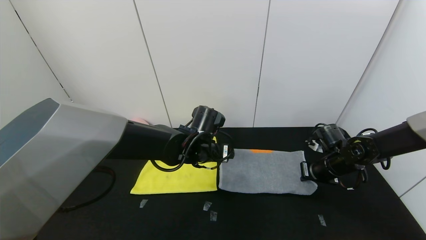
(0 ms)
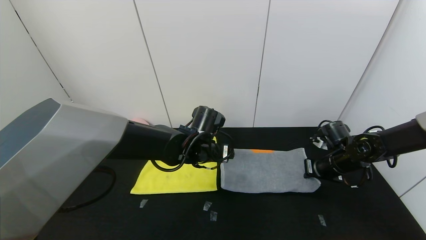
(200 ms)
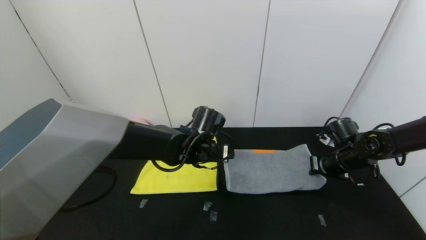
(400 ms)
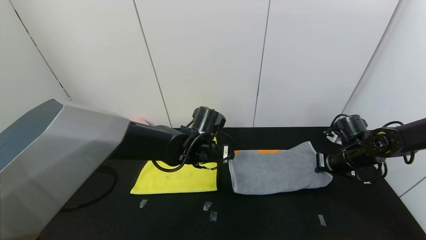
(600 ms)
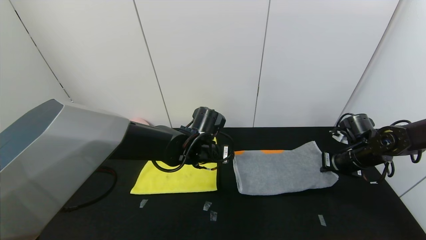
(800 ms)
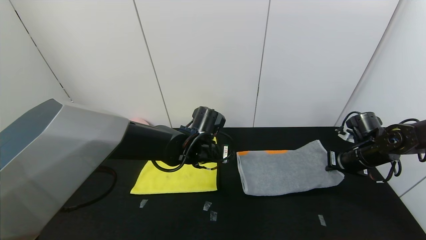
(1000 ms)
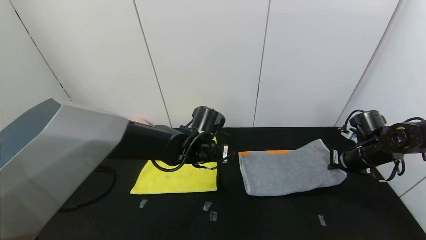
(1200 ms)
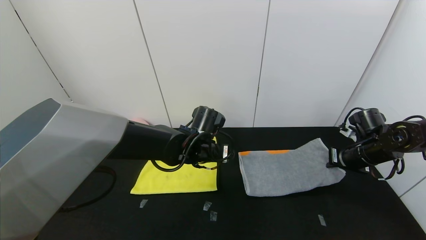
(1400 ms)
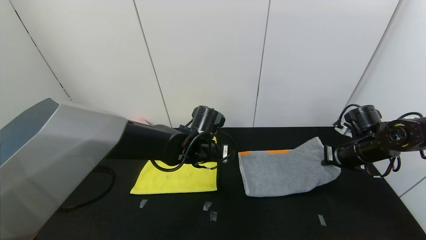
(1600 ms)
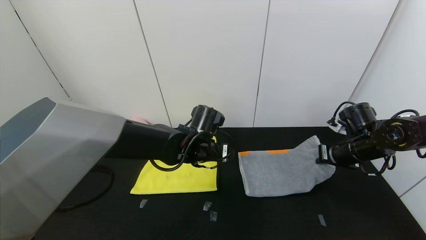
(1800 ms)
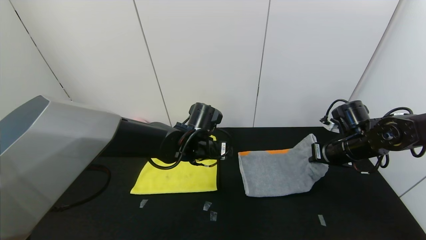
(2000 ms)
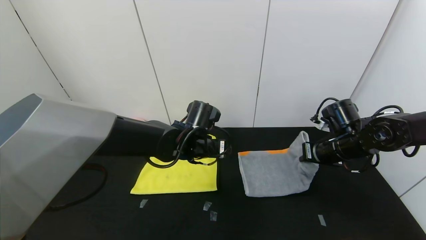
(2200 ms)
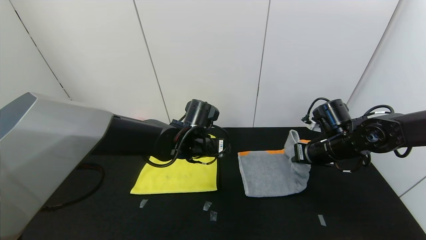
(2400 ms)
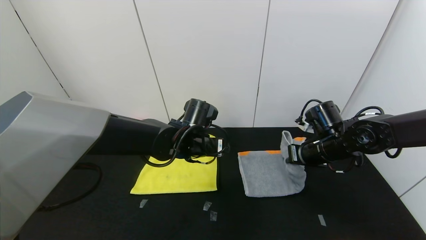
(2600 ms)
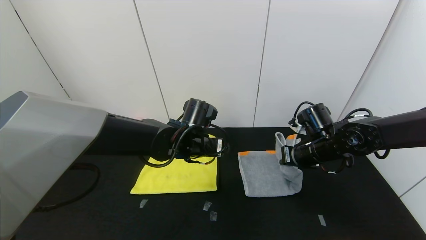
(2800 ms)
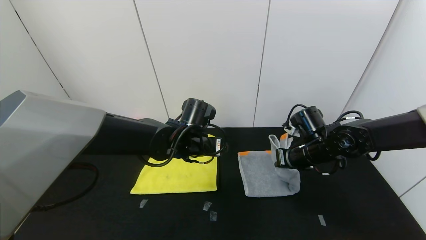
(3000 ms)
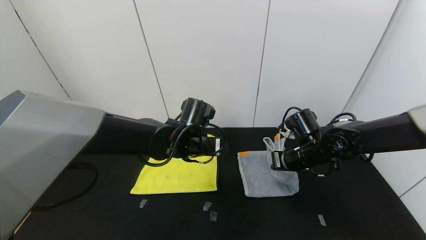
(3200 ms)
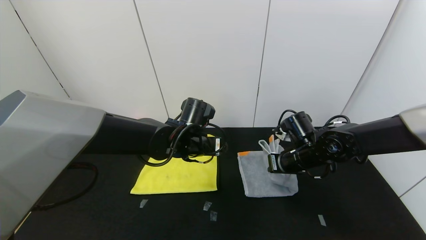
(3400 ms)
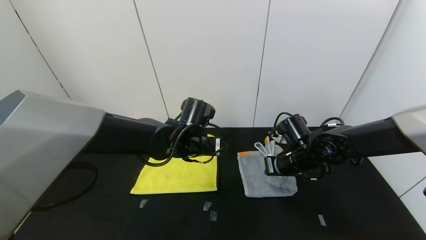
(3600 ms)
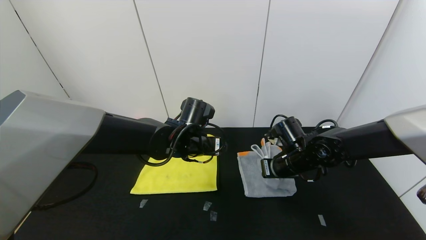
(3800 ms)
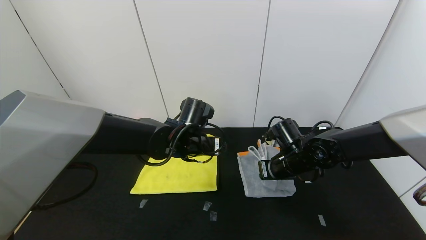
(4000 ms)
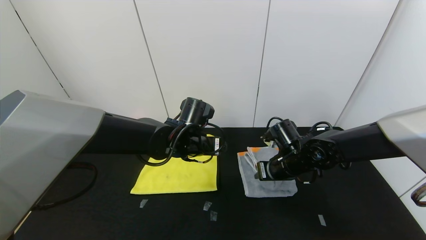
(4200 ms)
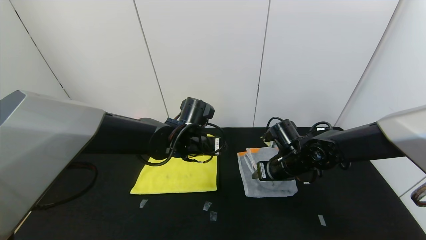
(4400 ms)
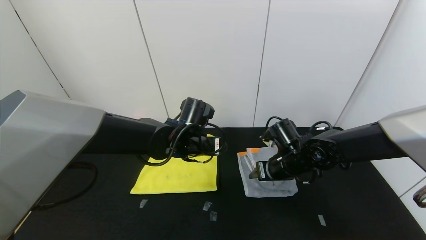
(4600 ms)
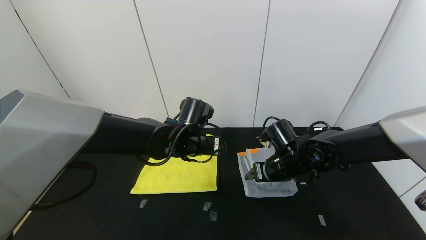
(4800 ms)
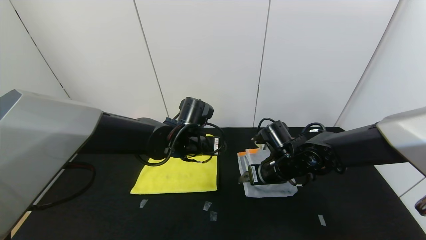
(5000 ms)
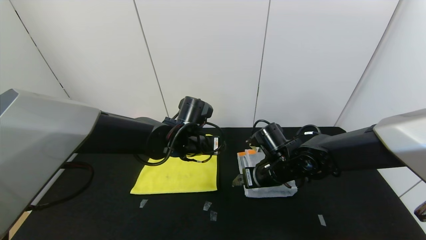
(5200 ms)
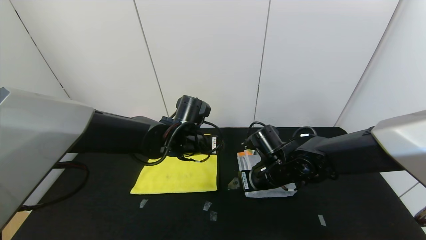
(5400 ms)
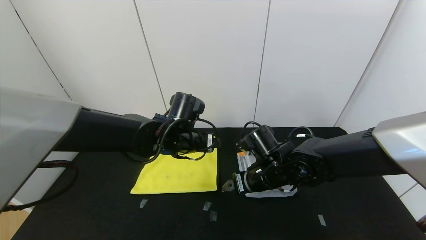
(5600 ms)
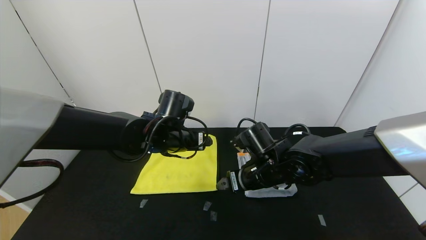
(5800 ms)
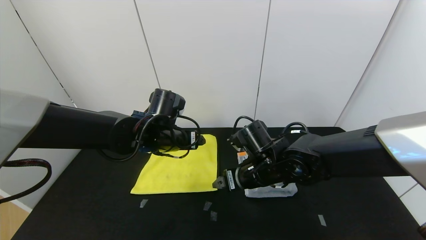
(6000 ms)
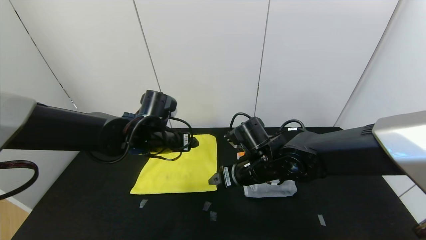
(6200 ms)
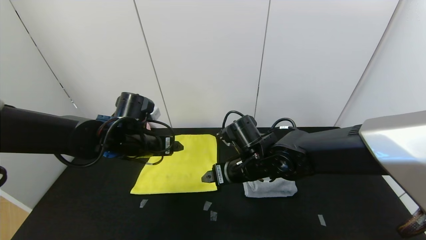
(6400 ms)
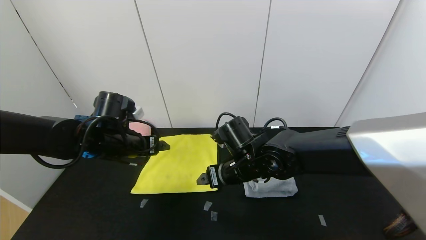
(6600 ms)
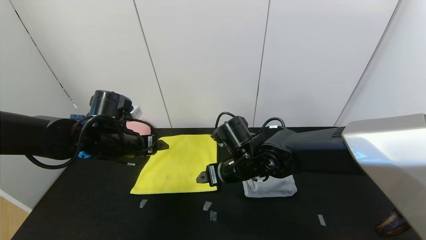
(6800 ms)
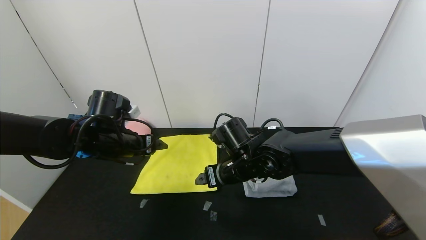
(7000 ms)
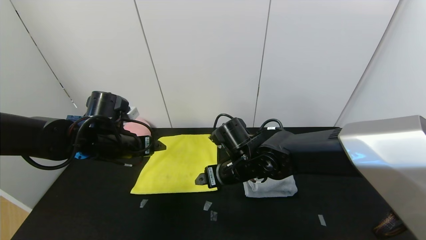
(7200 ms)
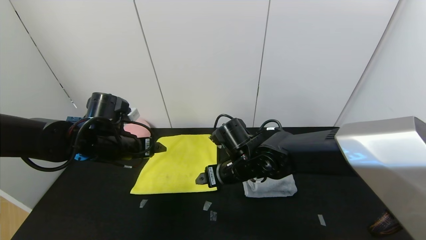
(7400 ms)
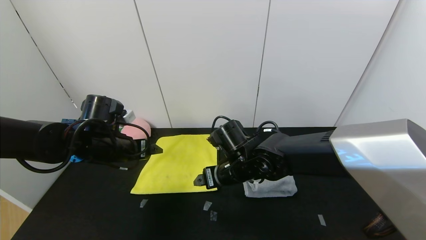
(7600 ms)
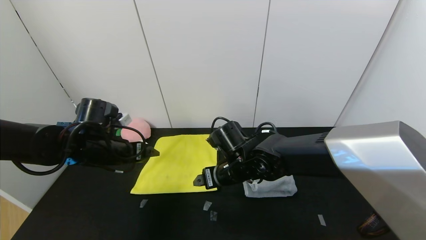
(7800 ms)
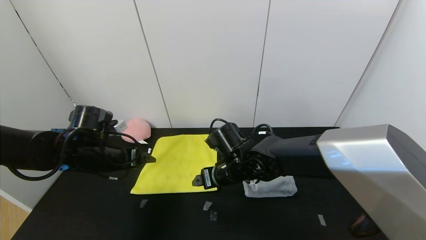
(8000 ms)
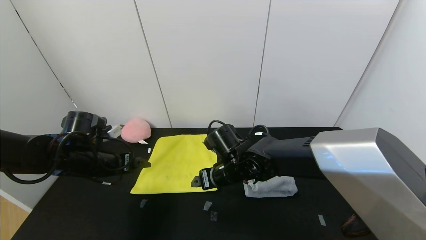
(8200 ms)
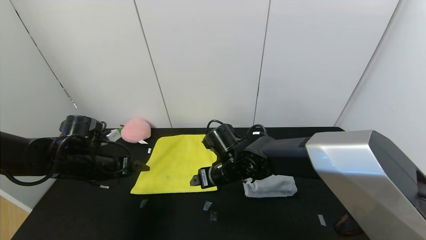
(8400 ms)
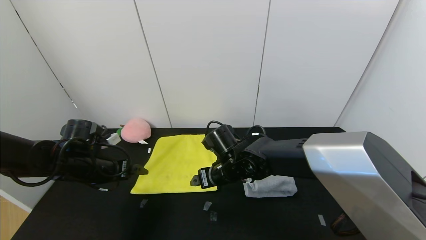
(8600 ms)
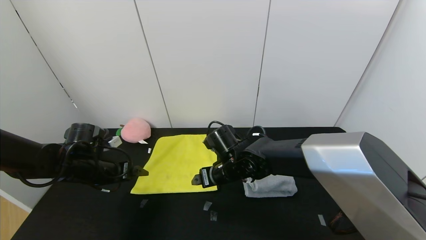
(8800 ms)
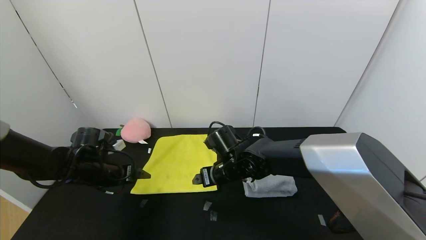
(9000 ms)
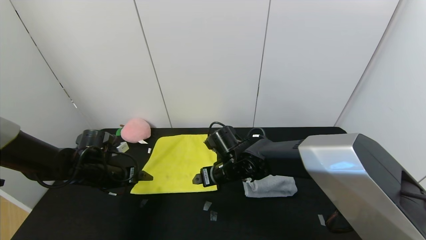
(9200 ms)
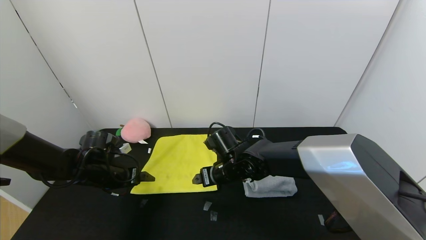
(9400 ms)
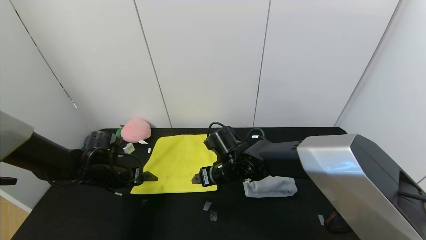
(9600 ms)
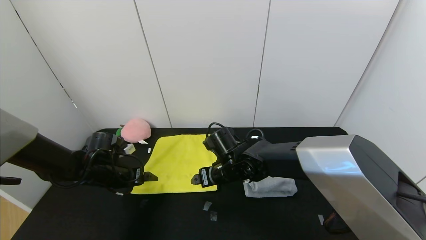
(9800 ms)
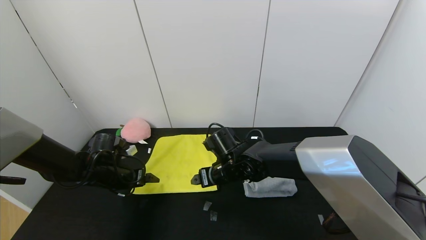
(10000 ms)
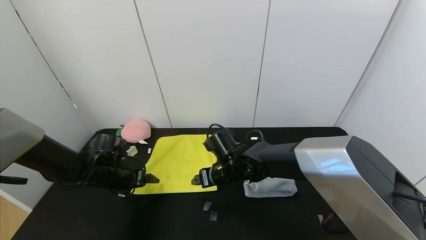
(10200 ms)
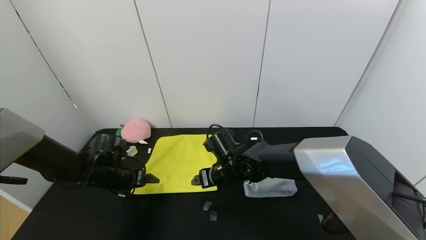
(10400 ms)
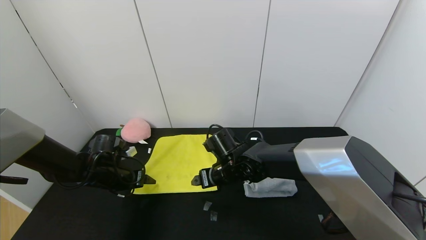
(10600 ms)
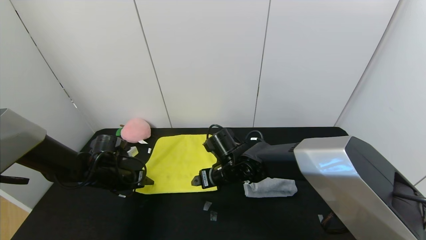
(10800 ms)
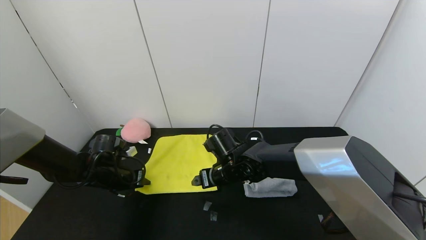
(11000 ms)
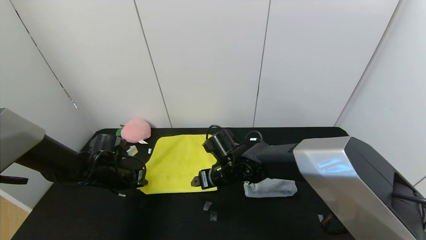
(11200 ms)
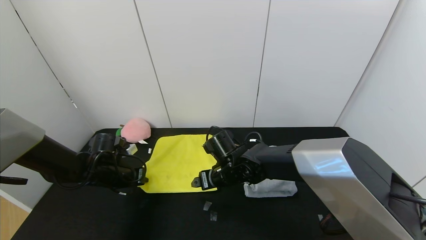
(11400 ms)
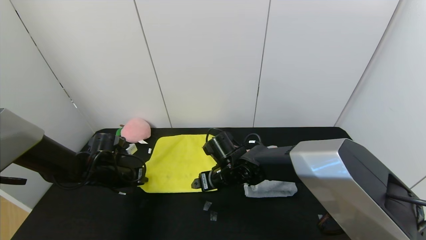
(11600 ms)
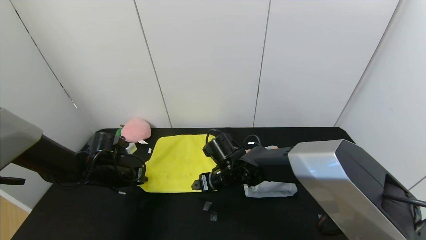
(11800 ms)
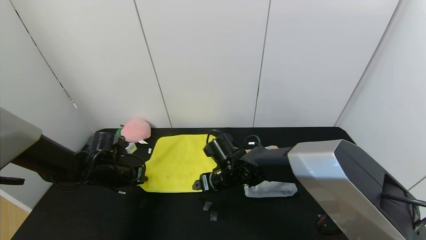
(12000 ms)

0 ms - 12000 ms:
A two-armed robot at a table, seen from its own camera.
Task of the whole recording: Use the gripper to fold the yellow towel and grey towel in half twice,then put the yellow towel on the grey towel.
Step, 0 ms - 6000 ms: Fold the gray towel from right to left with right gripper.
0 ms - 1600 ms: The right gripper shifts roughly 5 cm upward.
1600 ms - 3000 ms: The right gripper moves to the left, about 15 cm.
3000 ms - 4400 ms: The right gripper ends up about 5 cm from where it was, and opens its fingers.
4400 ms - 6000 ms: The two grippers go about 5 cm to the left. The right gripper opens up.
6000 ms - 7600 ms: The left gripper shifts some 10 cm to the left.
7600 ms - 9000 ms: The left gripper is displaced downward and to the left by roughly 10 cm. Meanwhile the right gripper moves some 5 cm.
9000 ms - 10400 ms: The grippers make only small movements.
10400 ms - 12000 ms: The left gripper closes.

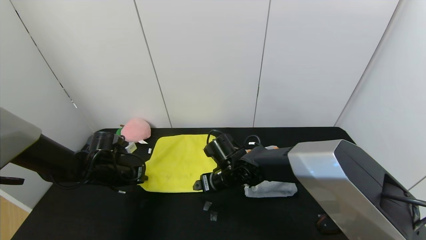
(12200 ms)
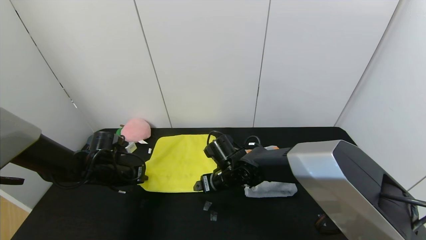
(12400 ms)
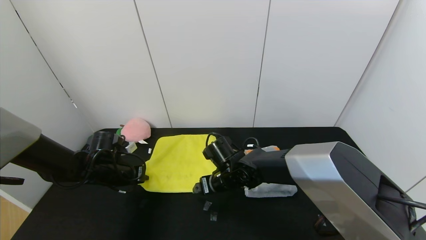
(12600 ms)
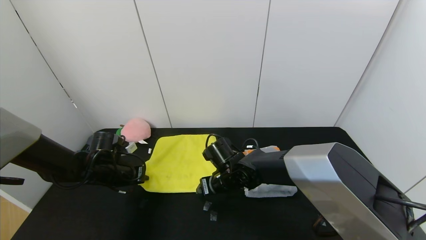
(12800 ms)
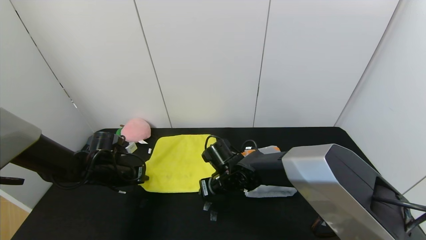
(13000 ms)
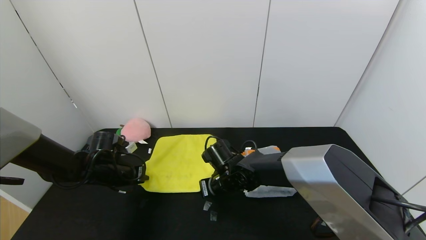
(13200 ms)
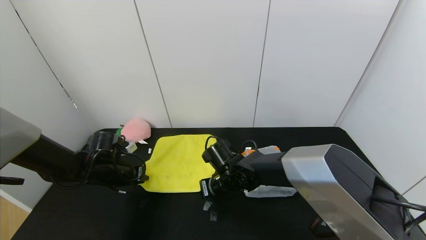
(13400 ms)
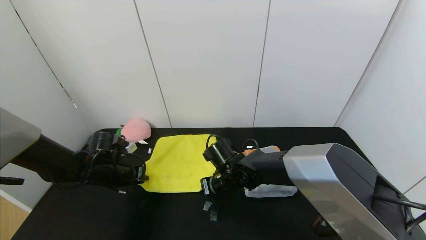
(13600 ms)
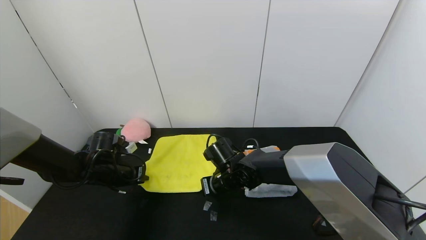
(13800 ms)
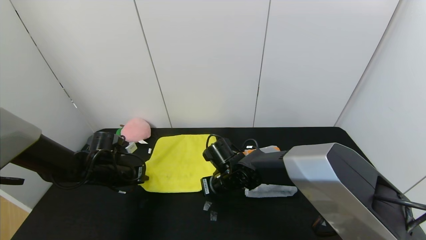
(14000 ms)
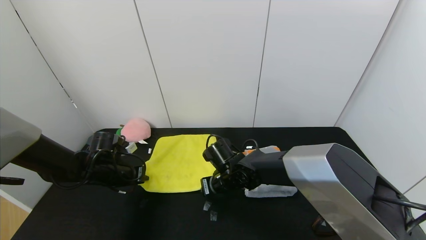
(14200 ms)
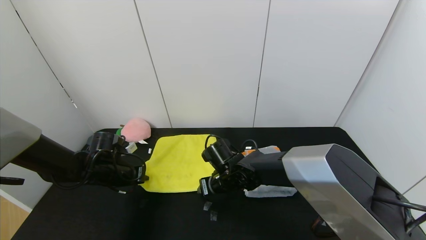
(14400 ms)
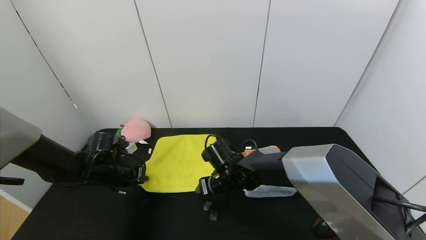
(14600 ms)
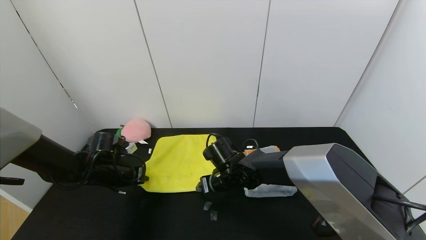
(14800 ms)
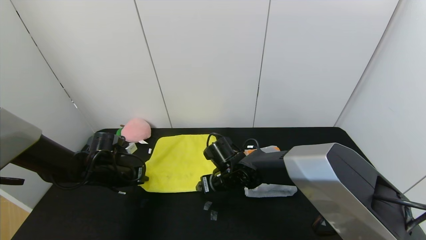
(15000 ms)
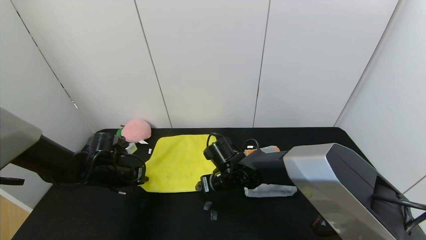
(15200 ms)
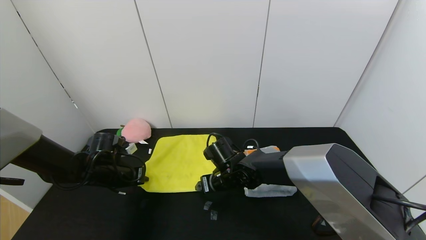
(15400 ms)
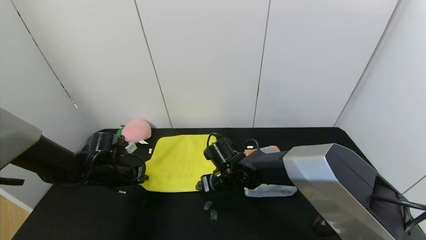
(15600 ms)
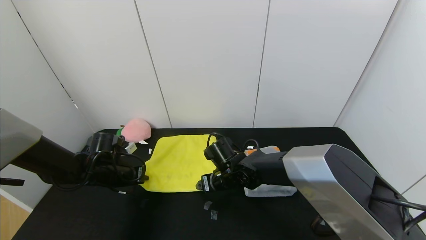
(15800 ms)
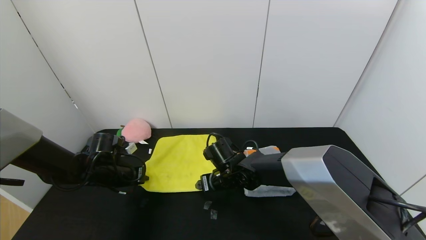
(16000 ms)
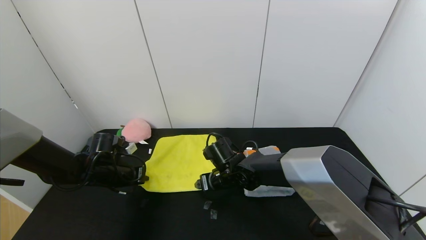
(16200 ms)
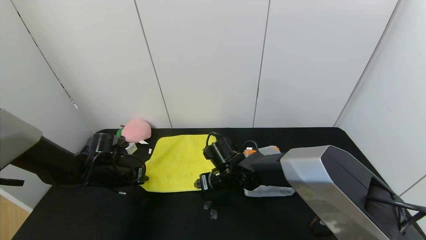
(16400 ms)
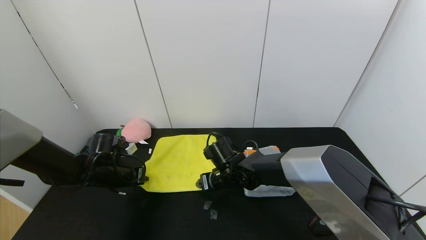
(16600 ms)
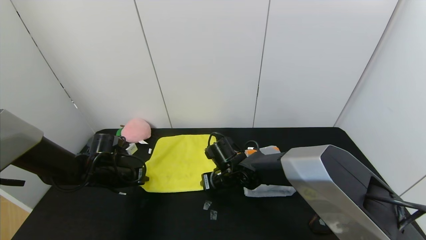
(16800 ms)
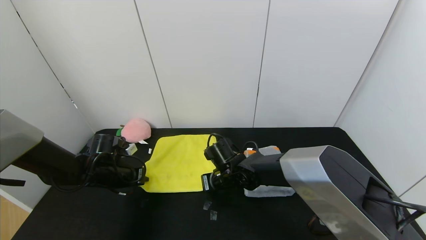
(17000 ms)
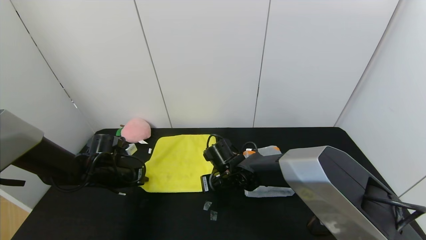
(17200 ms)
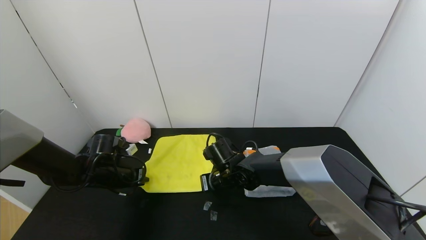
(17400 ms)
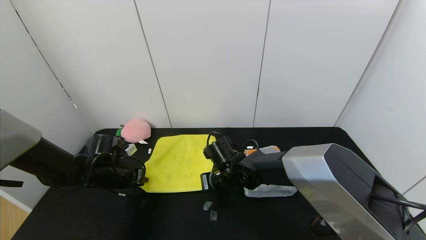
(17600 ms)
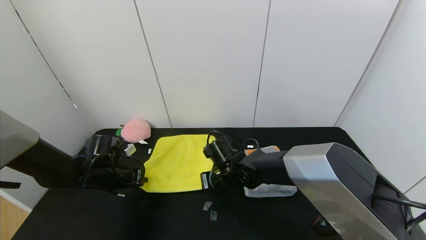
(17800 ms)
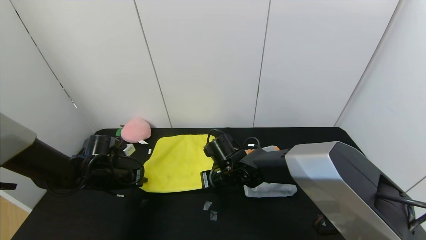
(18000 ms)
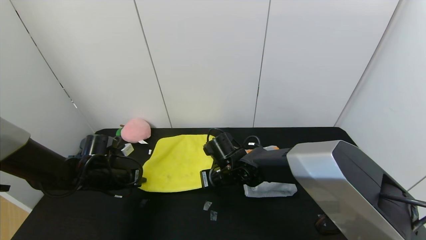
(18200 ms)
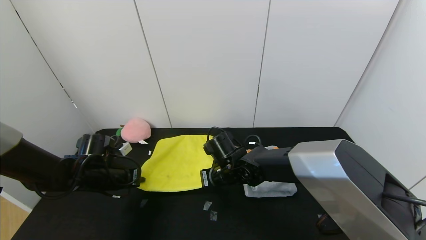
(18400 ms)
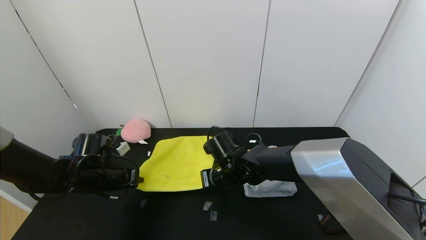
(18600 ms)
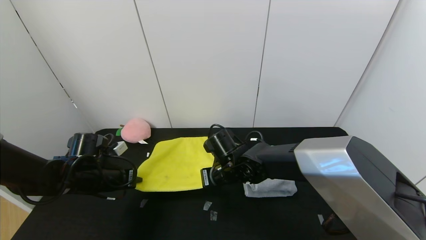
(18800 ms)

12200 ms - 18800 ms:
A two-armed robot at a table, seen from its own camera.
Task of the whole recording: Use the gripper to fold the yellow towel and grey towel in half twice,then put the yellow towel on the grey towel.
12200 ms - 13800 ms: The right gripper closes.
13800 ms - 15400 ms: The right gripper opens up.
15400 ms - 17200 ms: The right gripper closes.
17200 ms - 18800 ms: The left gripper changes place by some 5 cm.
